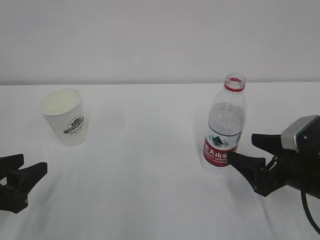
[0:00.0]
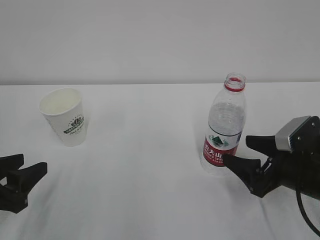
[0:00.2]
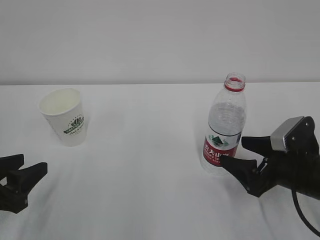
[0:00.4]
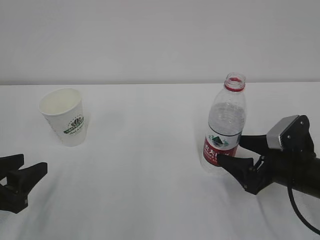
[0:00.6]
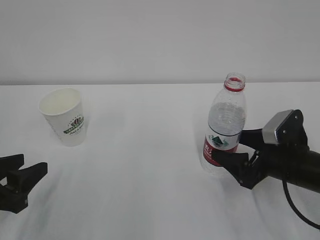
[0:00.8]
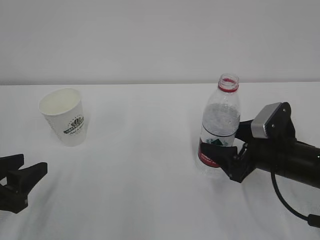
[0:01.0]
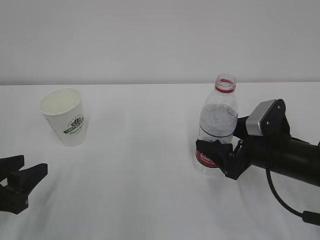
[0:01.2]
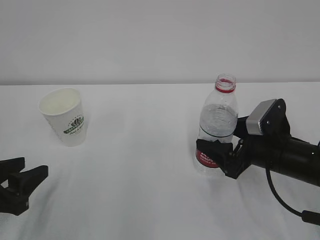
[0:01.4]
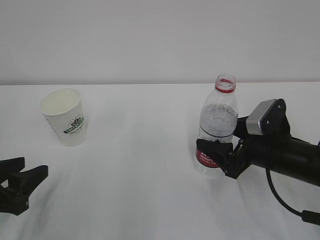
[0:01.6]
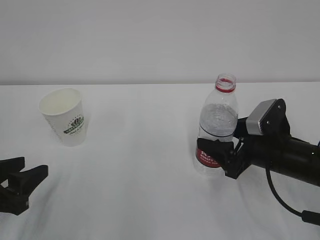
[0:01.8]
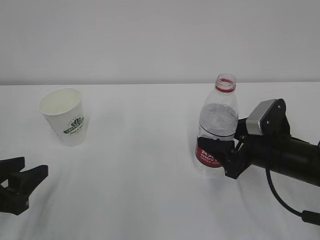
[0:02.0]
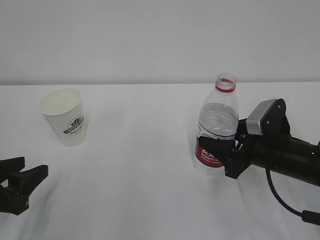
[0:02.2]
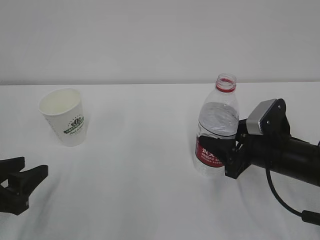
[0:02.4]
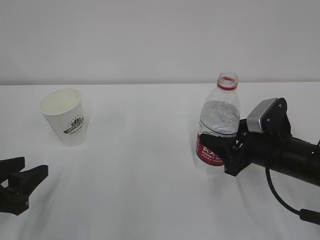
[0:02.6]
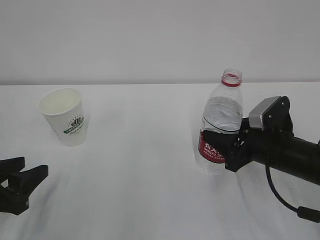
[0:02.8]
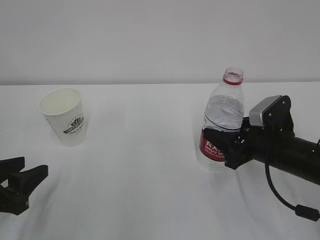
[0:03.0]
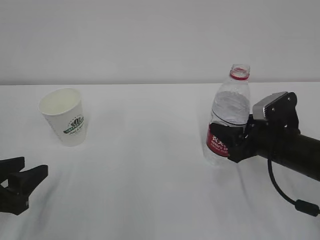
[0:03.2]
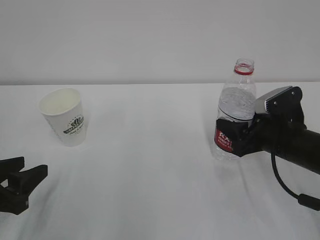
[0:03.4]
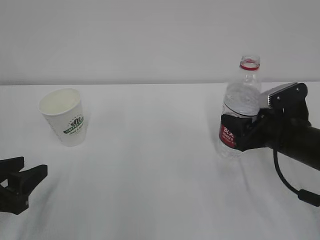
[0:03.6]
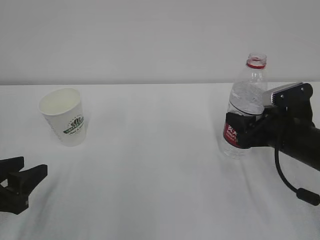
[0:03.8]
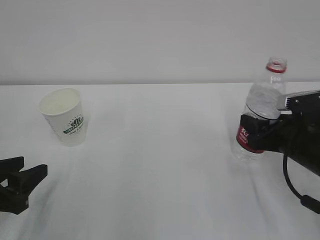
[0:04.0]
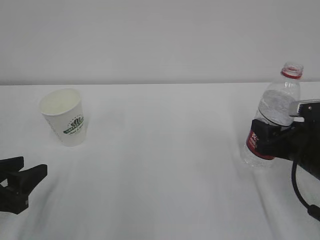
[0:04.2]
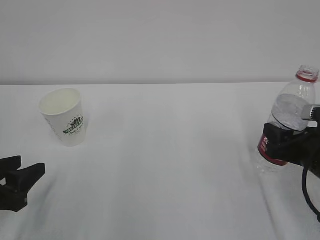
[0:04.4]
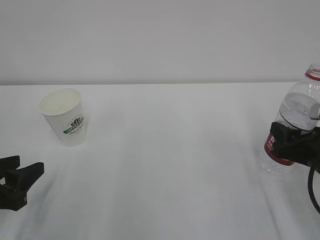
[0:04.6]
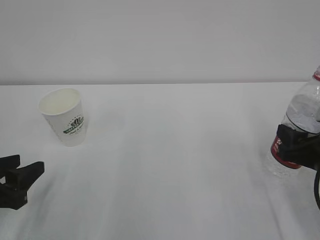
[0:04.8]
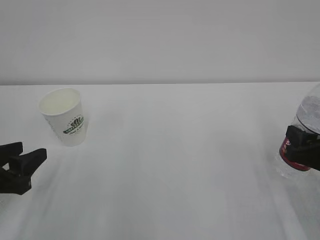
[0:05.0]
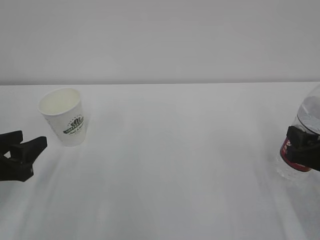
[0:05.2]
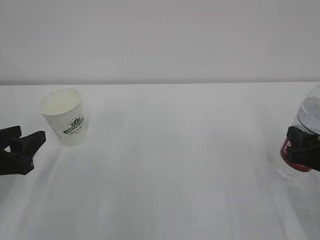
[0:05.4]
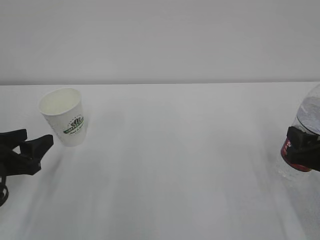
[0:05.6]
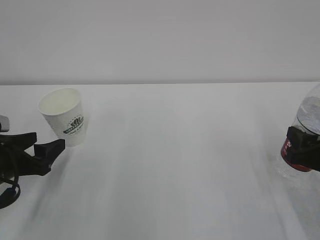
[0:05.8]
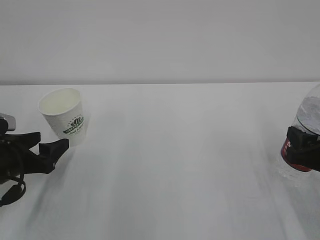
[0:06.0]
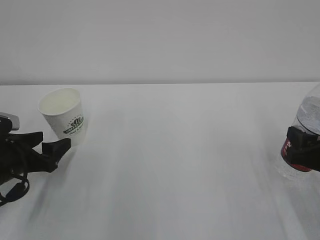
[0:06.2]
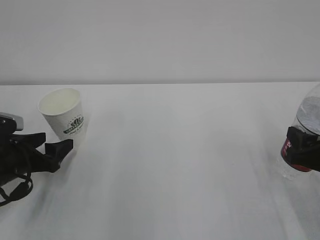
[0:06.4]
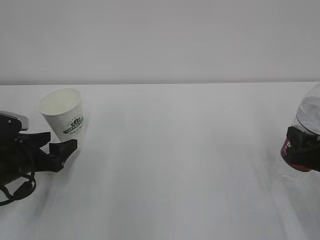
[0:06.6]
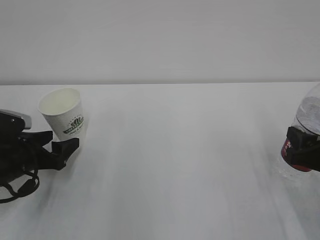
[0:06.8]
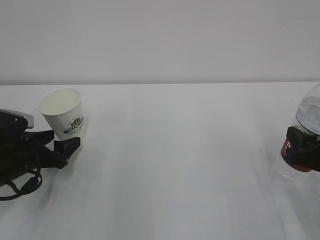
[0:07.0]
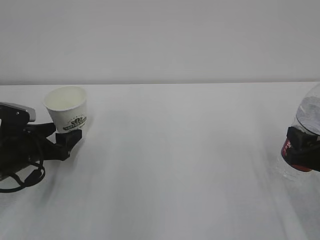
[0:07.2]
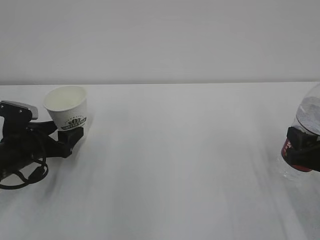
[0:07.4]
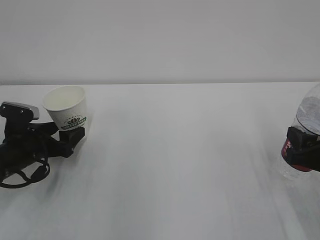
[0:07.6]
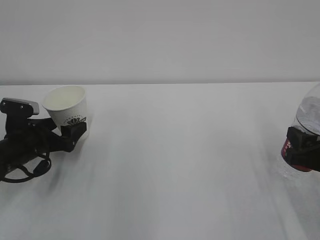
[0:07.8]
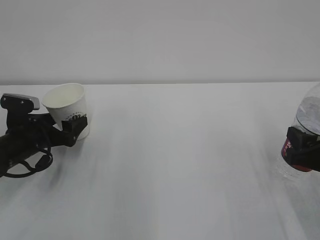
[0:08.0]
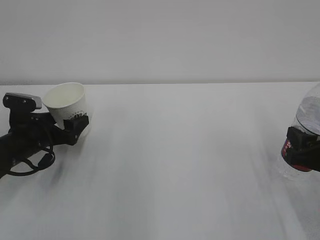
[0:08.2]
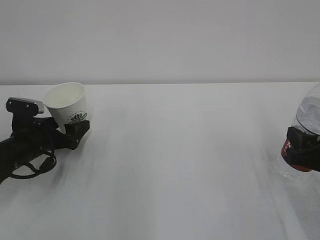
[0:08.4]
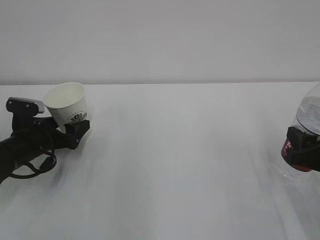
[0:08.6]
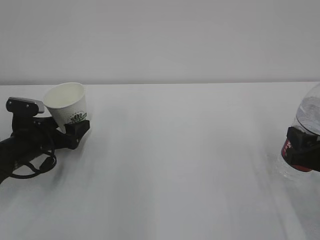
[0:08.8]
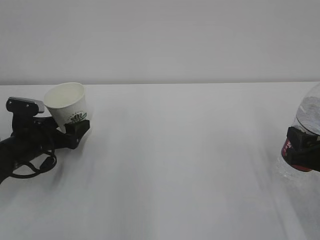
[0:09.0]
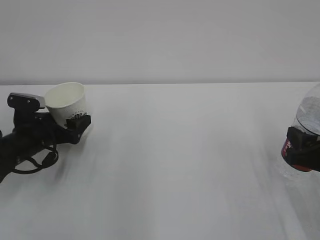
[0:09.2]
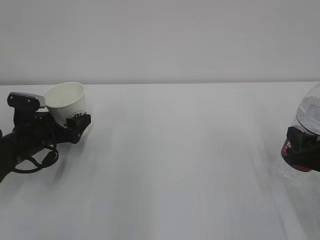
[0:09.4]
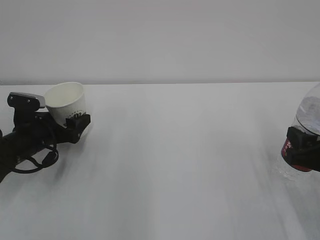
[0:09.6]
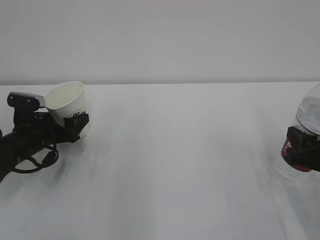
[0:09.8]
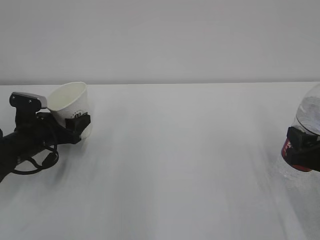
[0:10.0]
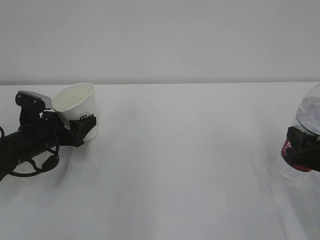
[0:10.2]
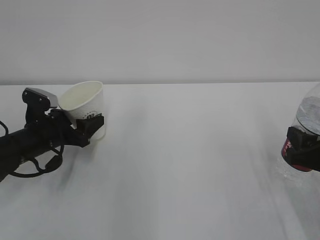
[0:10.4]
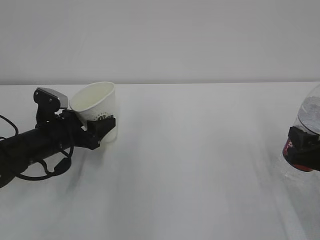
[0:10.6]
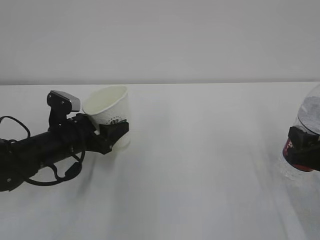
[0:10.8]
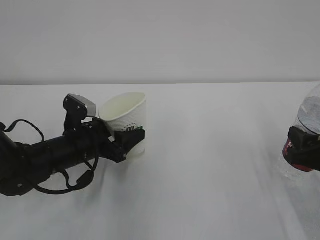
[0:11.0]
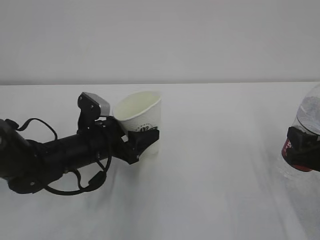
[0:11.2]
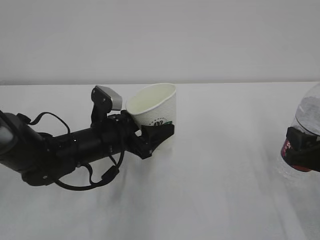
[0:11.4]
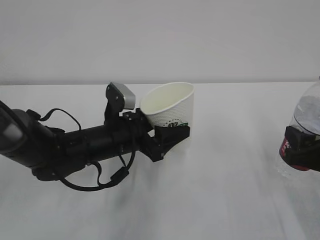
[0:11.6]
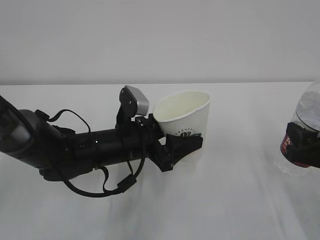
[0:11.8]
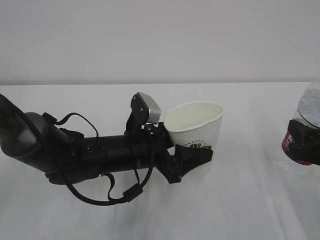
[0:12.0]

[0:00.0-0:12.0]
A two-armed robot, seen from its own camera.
0:00.0 to 0:01.6: The right gripper shifts by approximately 5 cm.
0:01.6 to 0:03.0: The right gripper closes its fingers.
0:03.0 to 0:04.4: The right gripper shifts about 5 cm to the right.
0:04.4 to 0:06.0: The left gripper travels forward by some 10 cm, and opens.
0:06.0 to 0:07.6: The left gripper heads forward, covering about 5 cm.
0:07.6 to 0:09.0: There are only small adjustments of the grippers.
0:09.0 to 0:10.4: The left gripper closes.
0:10.4 to 0:12.0: The left gripper travels to the right by roughly 20 cm.

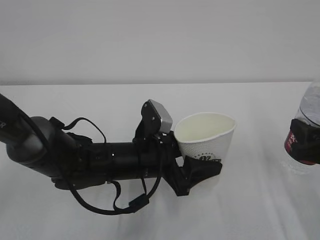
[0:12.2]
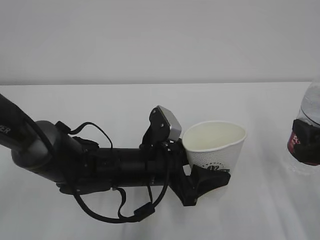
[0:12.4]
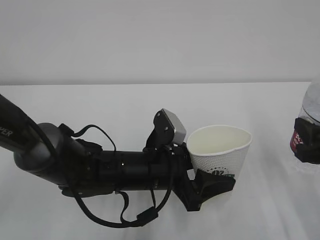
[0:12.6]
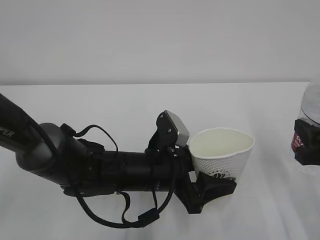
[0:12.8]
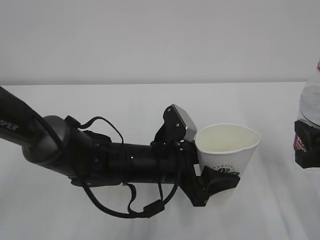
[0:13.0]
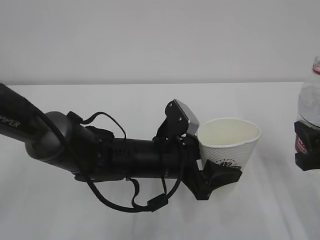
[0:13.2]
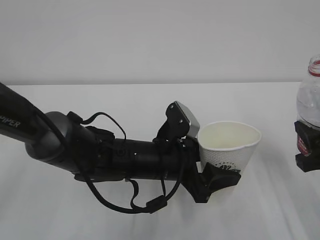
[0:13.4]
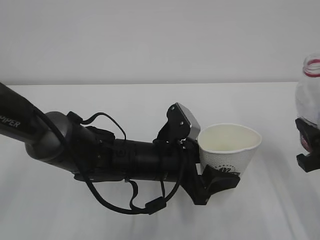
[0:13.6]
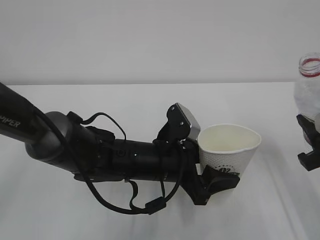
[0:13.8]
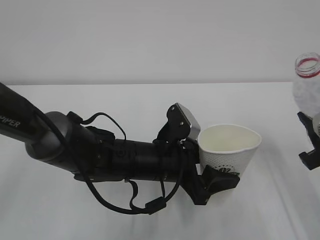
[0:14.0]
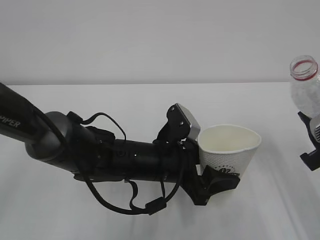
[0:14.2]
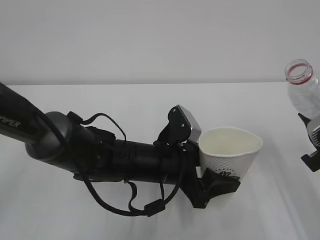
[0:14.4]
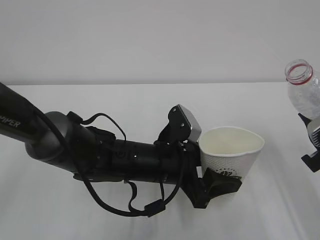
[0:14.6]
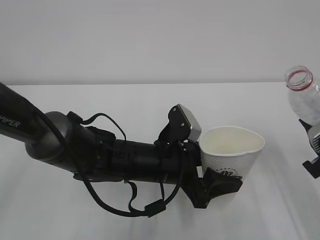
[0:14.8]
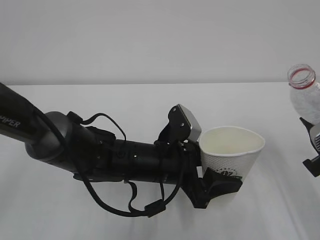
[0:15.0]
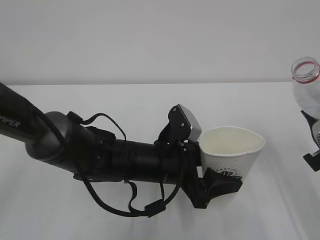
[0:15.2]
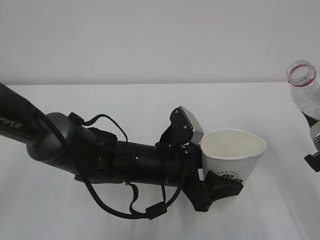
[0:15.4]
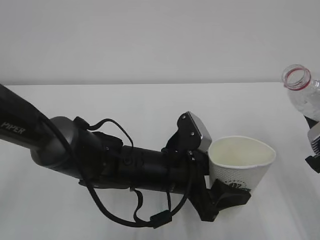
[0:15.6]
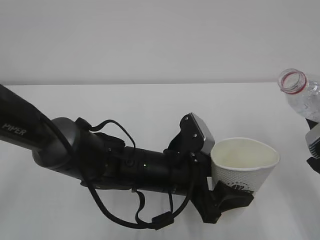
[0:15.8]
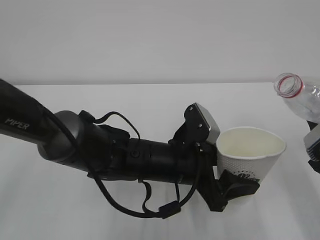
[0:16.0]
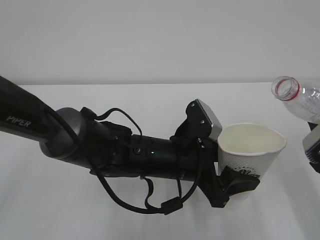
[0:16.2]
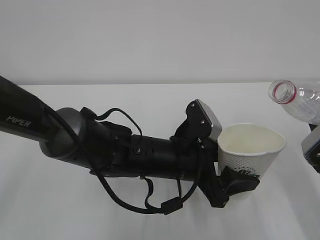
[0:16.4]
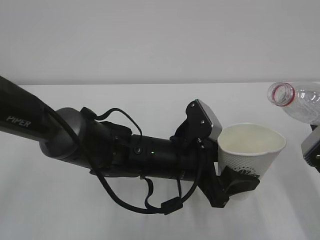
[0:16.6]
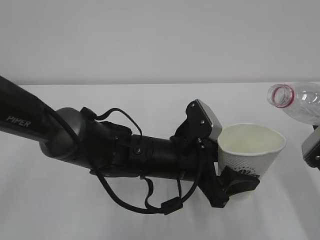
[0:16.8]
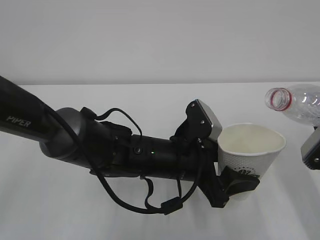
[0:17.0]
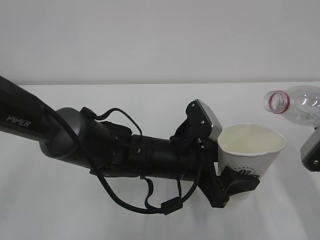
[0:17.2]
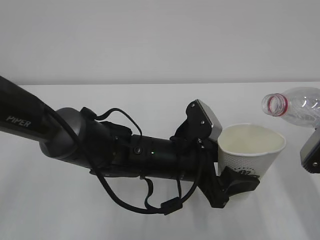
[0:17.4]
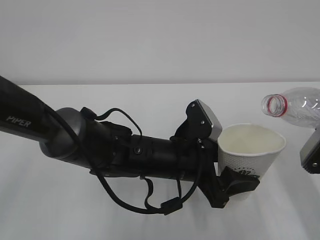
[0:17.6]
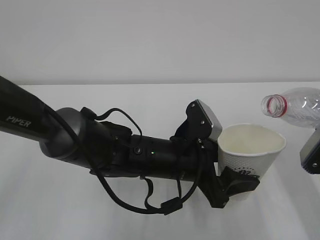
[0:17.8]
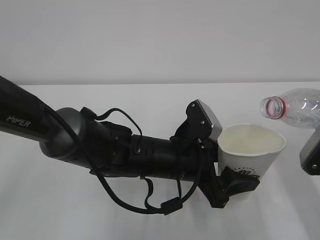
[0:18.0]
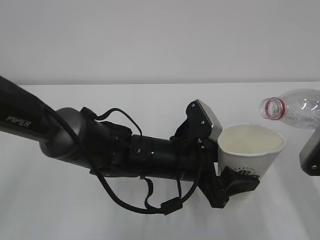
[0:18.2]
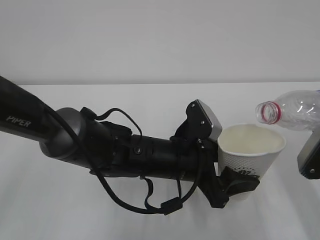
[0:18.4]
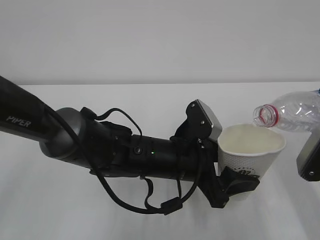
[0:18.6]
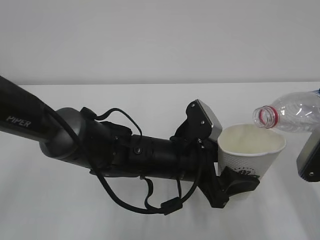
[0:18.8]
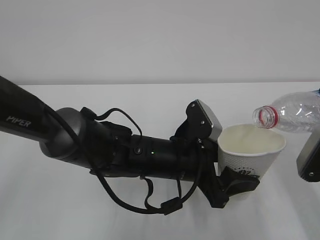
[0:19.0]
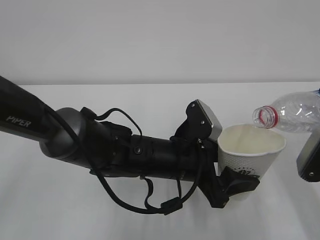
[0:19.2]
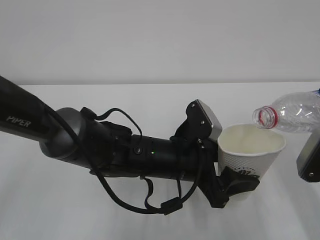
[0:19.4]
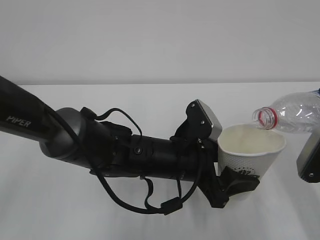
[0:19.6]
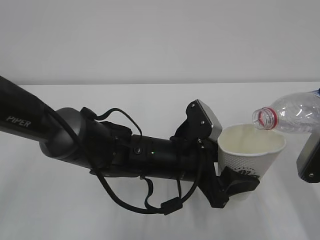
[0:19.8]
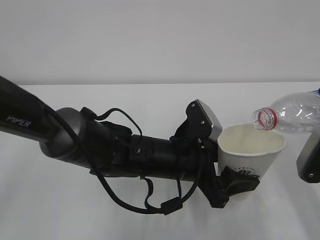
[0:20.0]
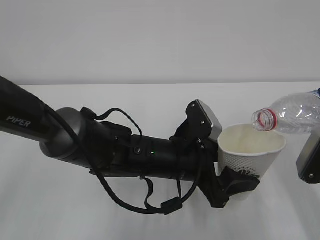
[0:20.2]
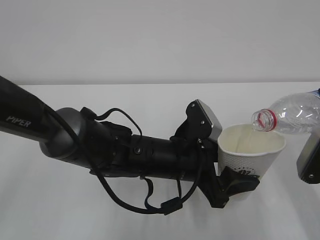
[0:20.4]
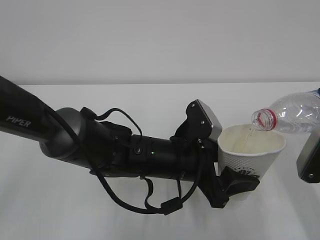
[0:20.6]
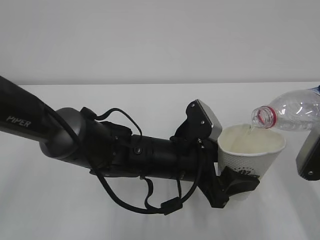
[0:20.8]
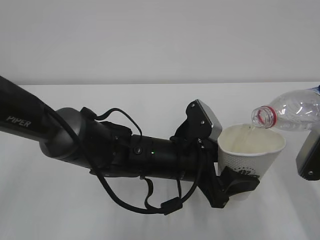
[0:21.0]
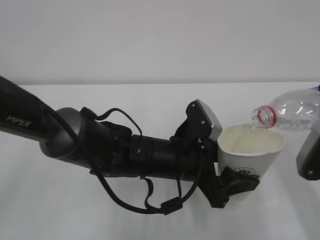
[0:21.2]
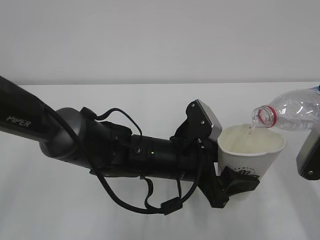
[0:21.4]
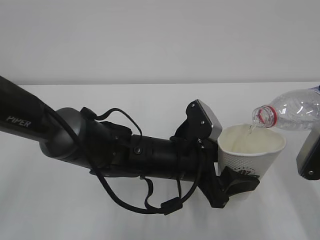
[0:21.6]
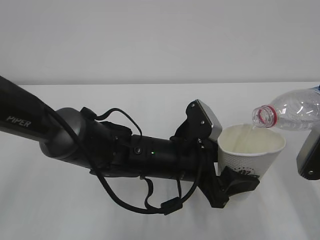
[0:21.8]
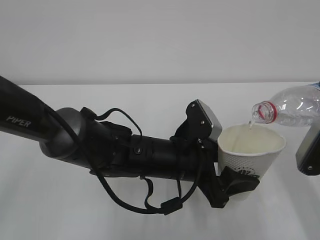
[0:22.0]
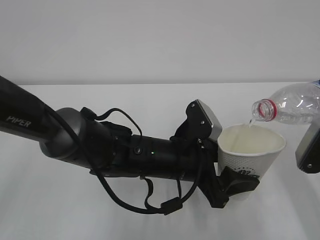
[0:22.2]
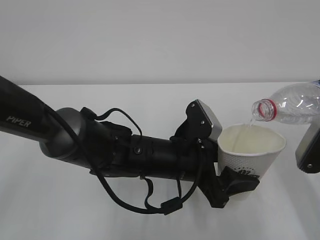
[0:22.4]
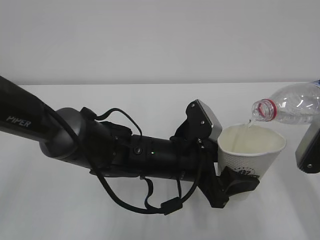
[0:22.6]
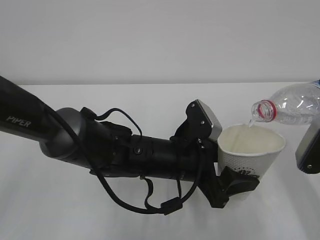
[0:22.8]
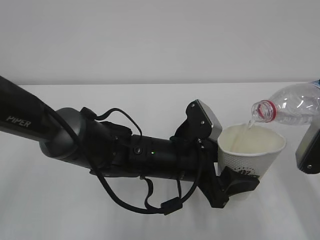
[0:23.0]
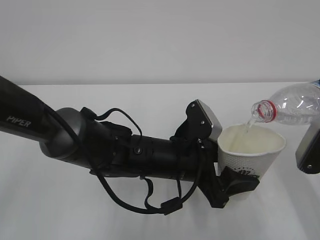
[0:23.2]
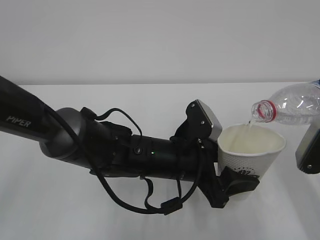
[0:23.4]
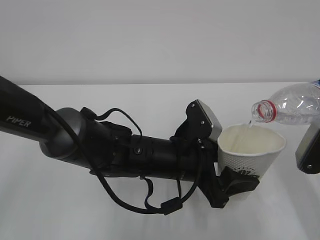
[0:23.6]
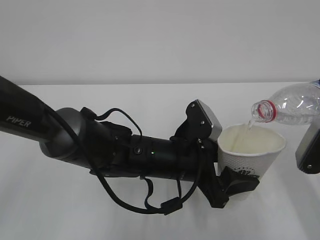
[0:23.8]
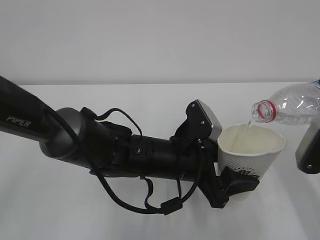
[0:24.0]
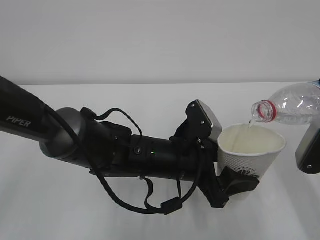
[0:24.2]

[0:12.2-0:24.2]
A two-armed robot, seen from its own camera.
0:13.8 to 0:15.2: The grippers stay close to where they were, moving slightly.
0:16.6 to 0:19.8: There are only small adjustments of the grippers.
0:19.8 to 0:24.2: Both grippers stay put.
